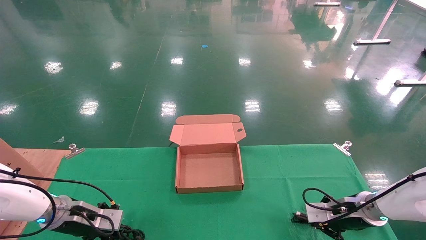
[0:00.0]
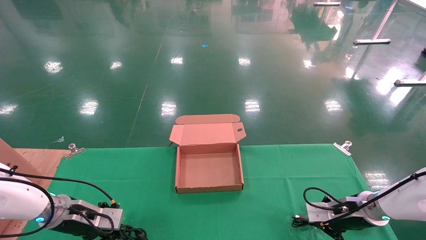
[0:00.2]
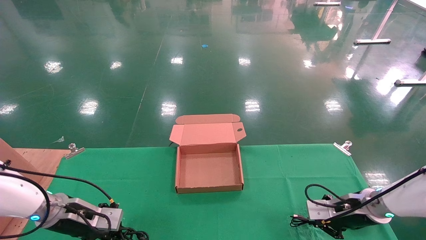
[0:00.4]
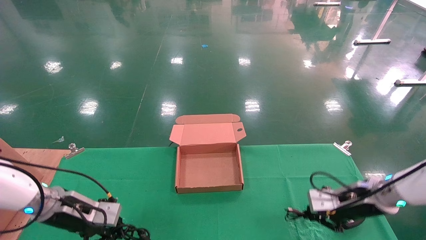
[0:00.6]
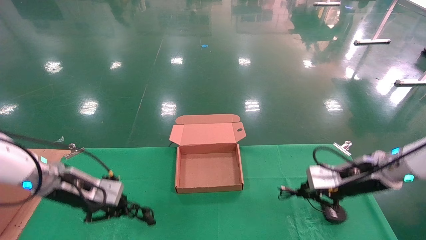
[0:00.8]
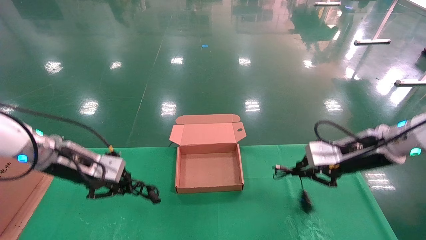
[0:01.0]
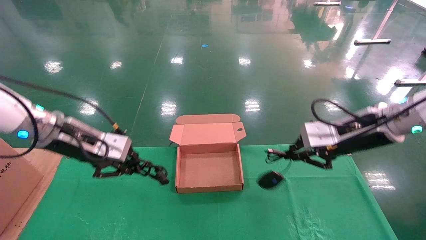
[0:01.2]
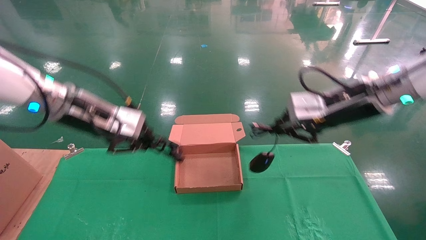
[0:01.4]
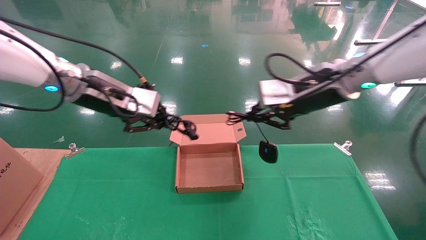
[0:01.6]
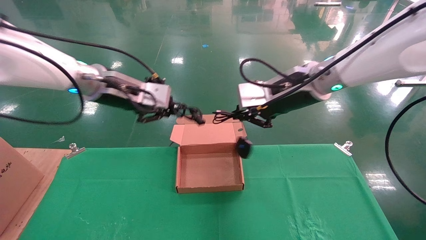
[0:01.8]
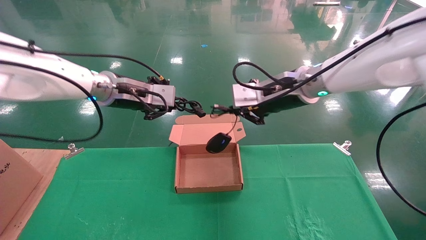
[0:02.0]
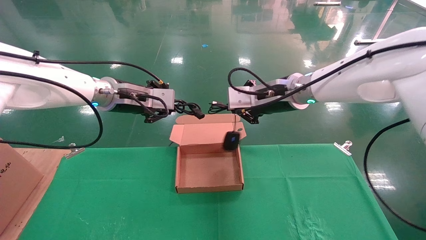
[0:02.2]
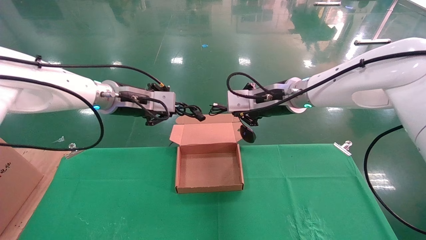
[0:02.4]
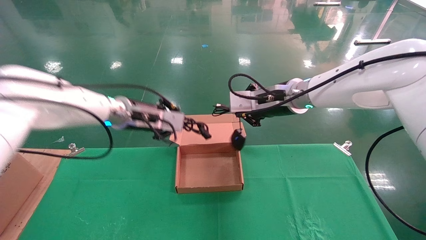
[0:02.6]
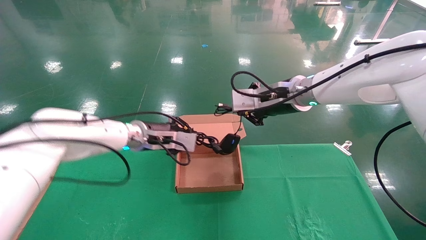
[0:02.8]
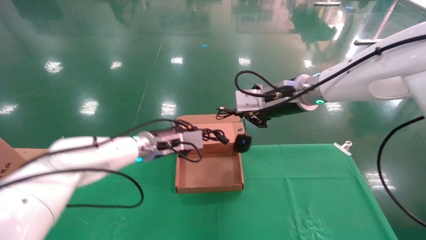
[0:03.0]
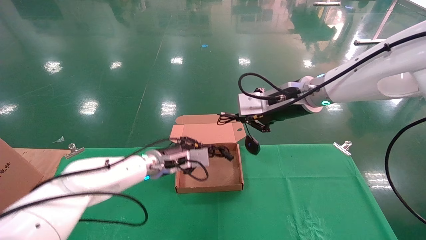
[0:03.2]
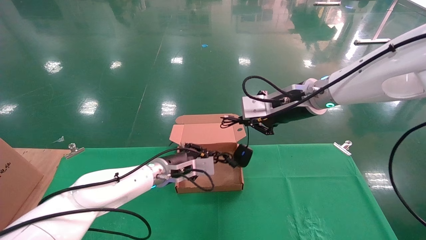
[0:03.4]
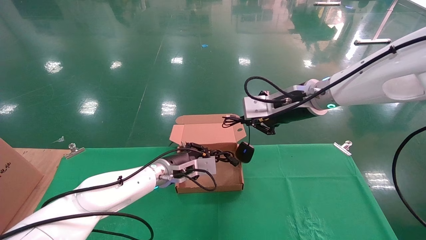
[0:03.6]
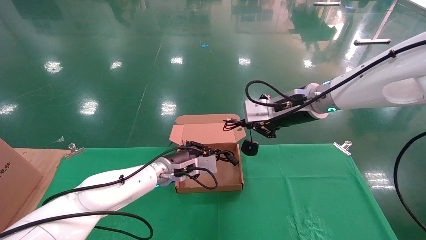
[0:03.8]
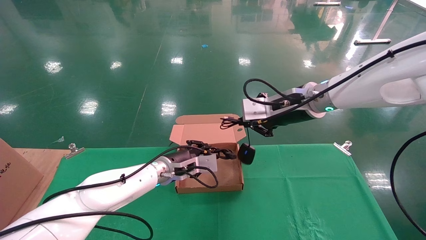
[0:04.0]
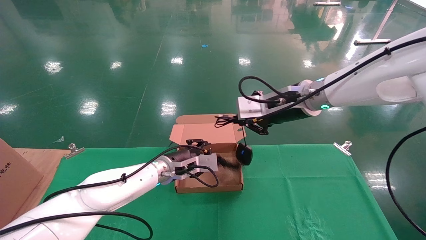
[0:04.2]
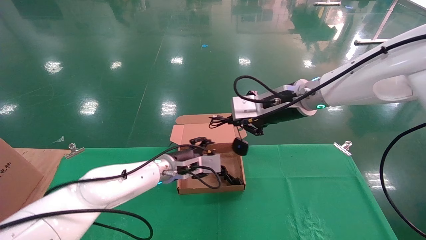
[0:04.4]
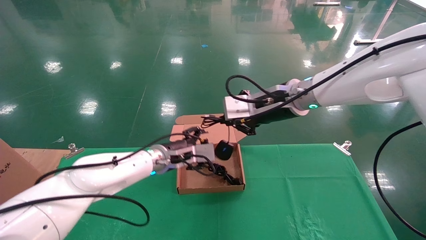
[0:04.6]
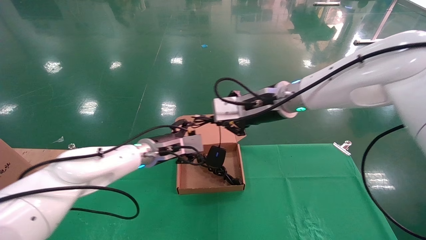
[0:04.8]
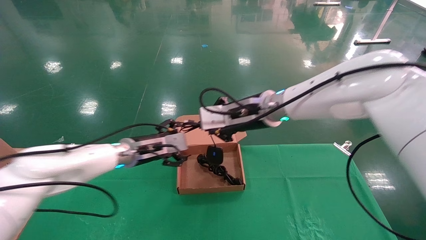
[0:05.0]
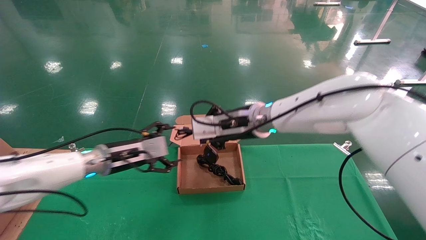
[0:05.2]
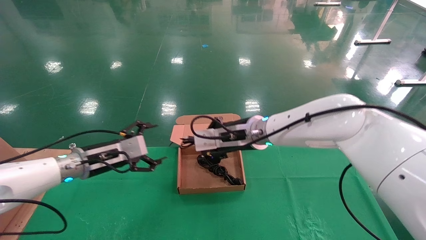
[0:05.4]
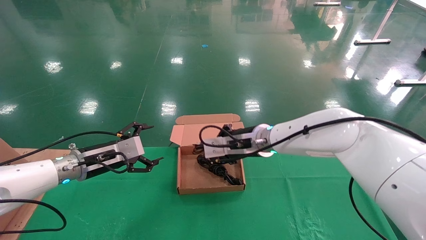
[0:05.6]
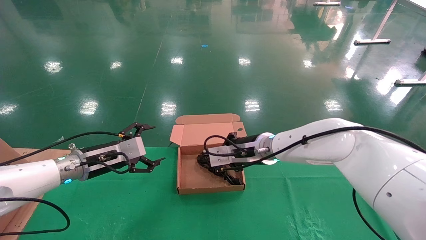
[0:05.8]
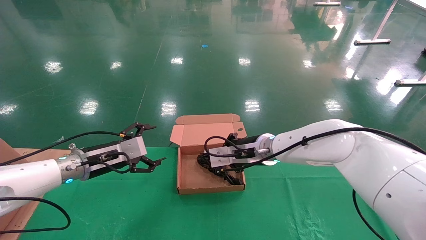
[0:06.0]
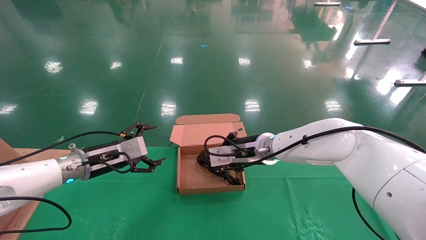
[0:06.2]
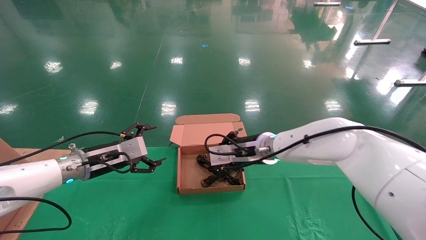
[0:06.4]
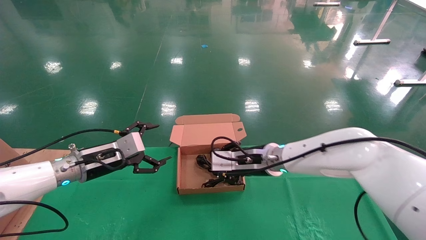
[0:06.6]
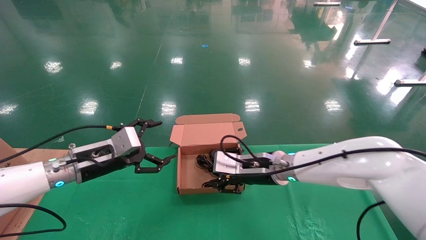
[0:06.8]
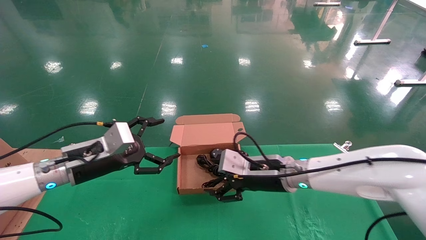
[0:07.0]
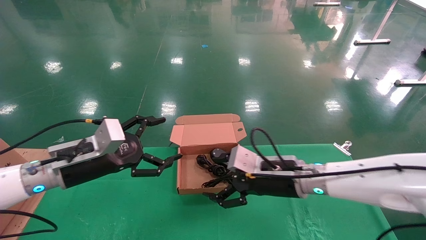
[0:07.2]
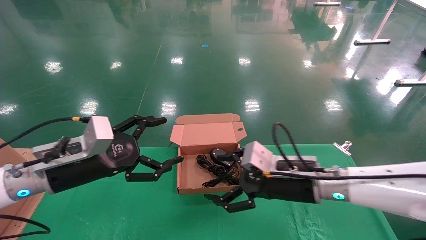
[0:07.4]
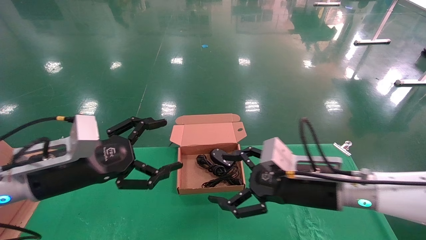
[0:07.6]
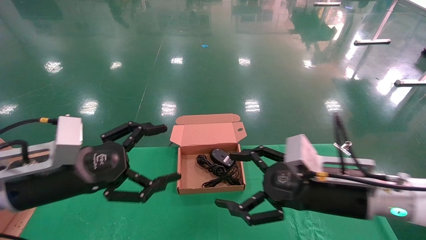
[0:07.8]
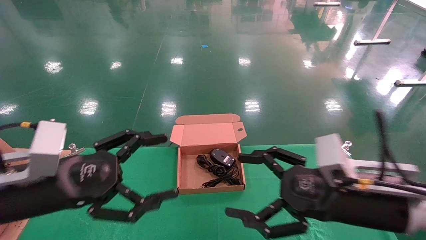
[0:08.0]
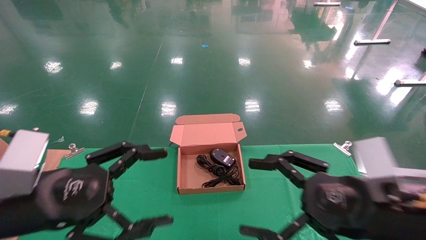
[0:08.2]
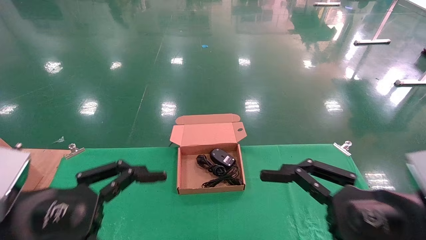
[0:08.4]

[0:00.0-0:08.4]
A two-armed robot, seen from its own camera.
Step, 0:00.8 to 0:07.0: Place the mouse and power cord into the box.
0:00.0 to 0:01.4: Both grippers travel together upward, roughly 25 cm.
0:01.4 to 0:02.8: The left gripper is displaced forward, to the right and downward by some 15 cm, while the right gripper shifts roughly 10 cm to the left and forward.
0:02.8 to 0:04.2: The left gripper is displaced downward and to the right by some 10 cm.
0:04.2 to 0:05.6: The right gripper goes some 15 cm downward and to the left. Meanwhile the left gripper travels to the left by roughly 20 cm, and opens its fingers.
0:05.6 to 0:07.0: The left gripper moves backward, approximately 5 cm, while the right gripper is displaced backward and downward by about 10 cm, and opens up.
0:07.0 to 0:08.4: The left gripper travels backward by approximately 20 cm. The right gripper travels backward and to the right by about 25 cm, and opens.
